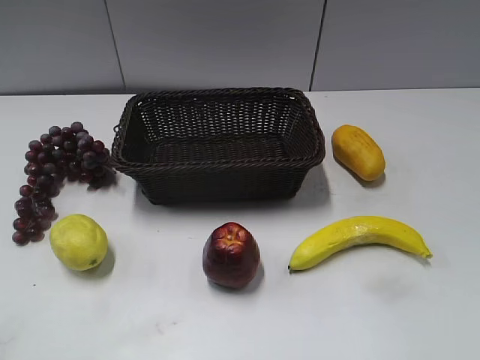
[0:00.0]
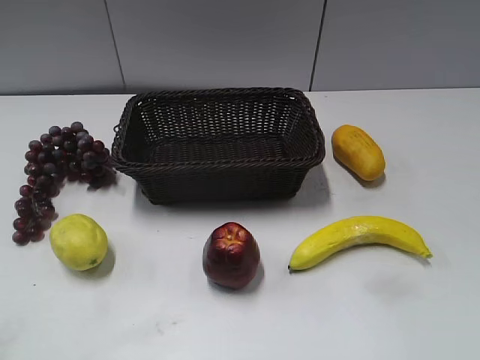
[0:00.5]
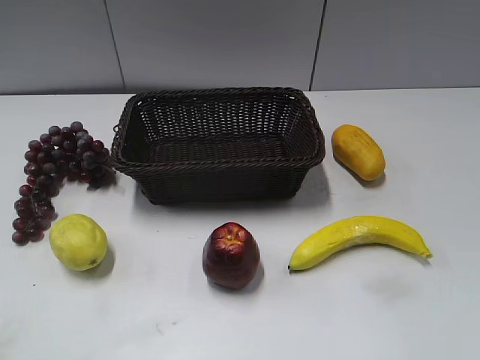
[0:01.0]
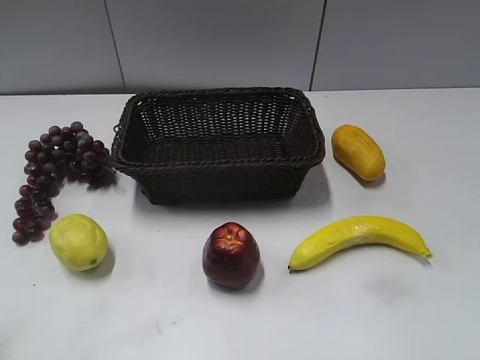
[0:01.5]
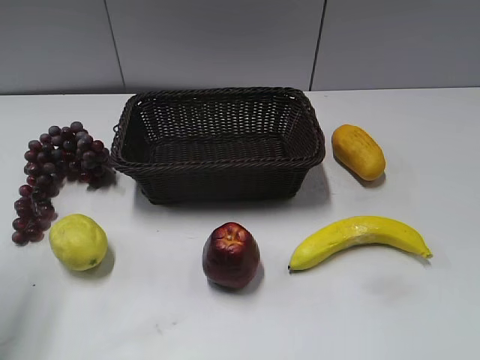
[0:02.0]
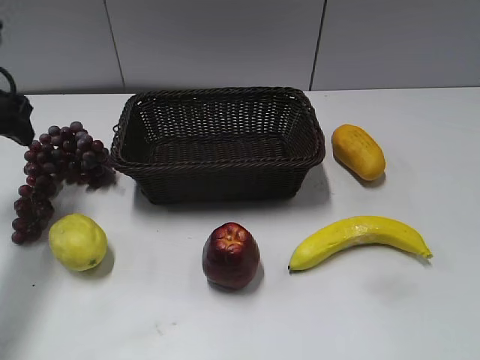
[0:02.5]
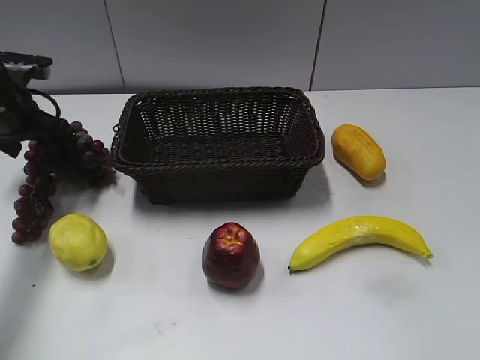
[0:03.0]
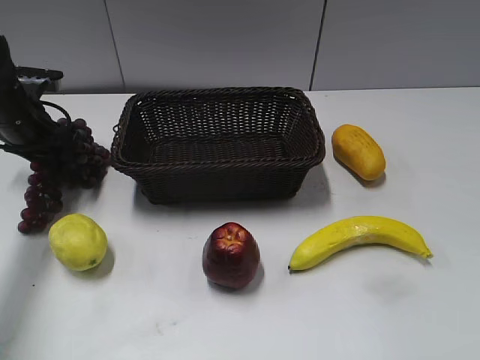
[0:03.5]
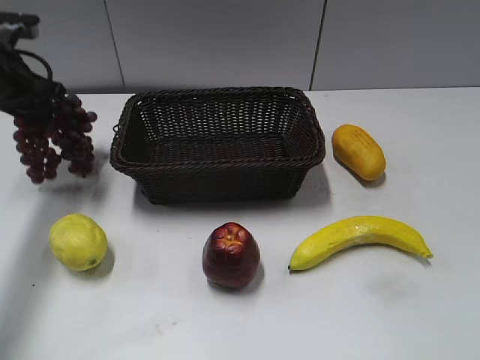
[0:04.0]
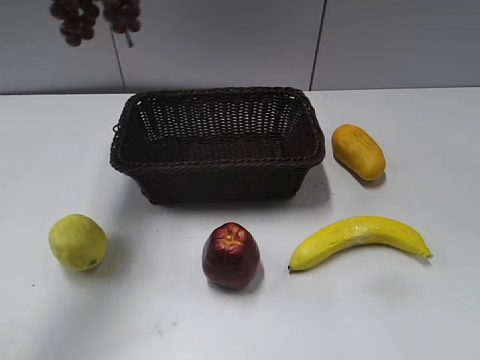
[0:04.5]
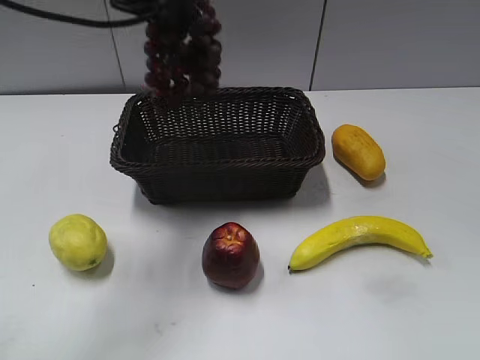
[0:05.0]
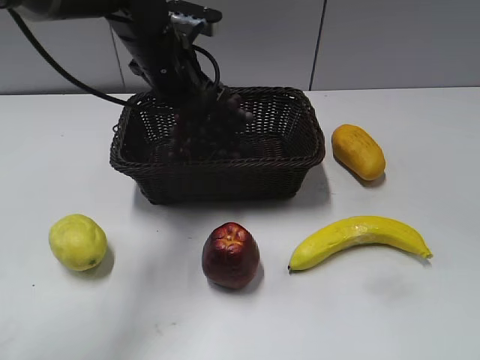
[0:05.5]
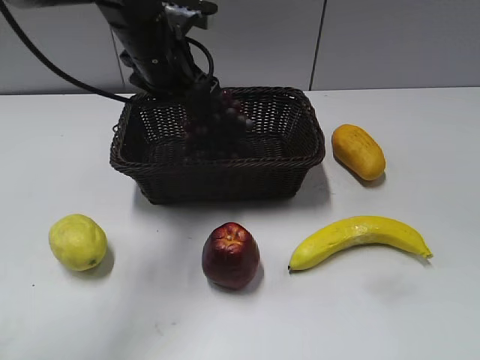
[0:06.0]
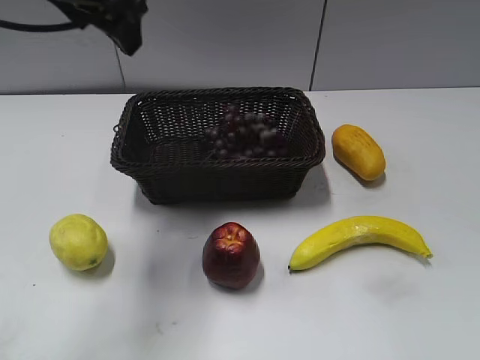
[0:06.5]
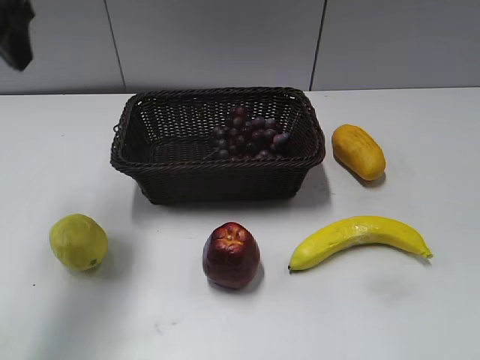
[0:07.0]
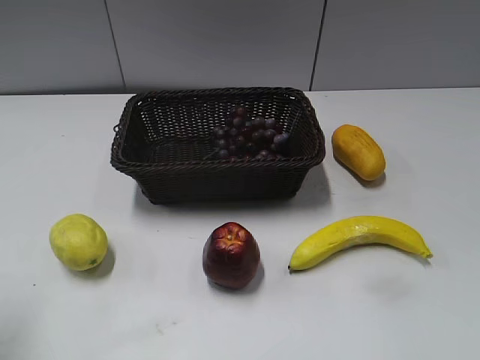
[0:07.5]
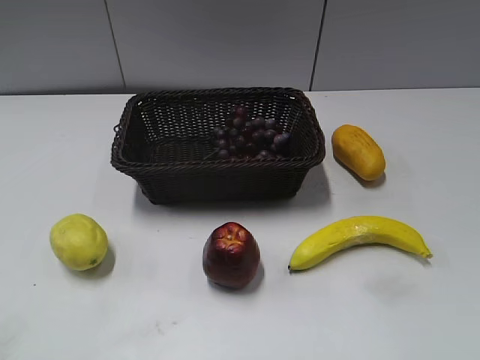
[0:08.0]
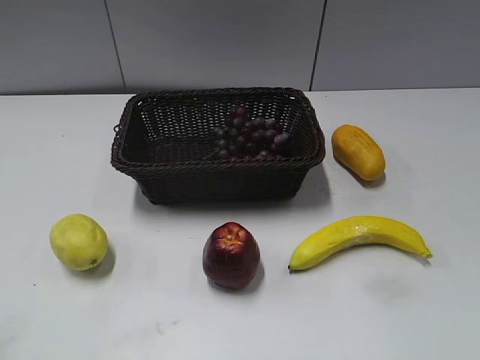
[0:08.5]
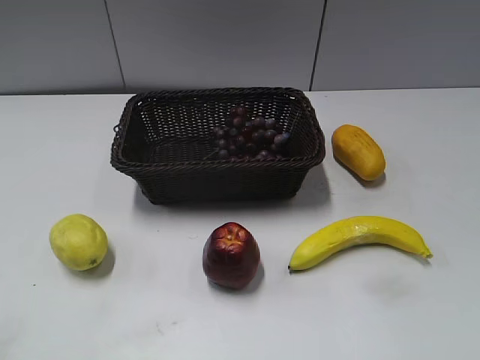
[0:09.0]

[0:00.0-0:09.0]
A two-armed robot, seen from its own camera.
Step, 0:02.5 to 0:03.0: Grasp the grape with left gripper.
Step, 0:03.5 to 0:05.5: Place the grape in the basket with left gripper.
0:02.0 to 0:04.5: The left gripper is displaced forward, upward and to the right by some 25 cm, and closes.
0:04.5 to 0:07.0: The left gripper moves backward, about 10 cm, moves roughly 20 cm downward and comes back, and opens its fingers.
0:07.0 to 0:09.0: The left gripper travels backward by roughly 30 cm.
